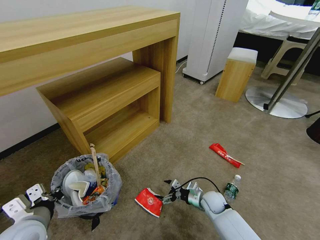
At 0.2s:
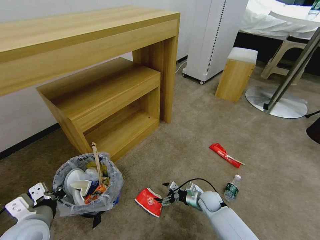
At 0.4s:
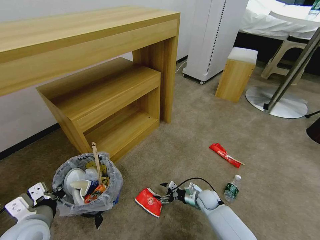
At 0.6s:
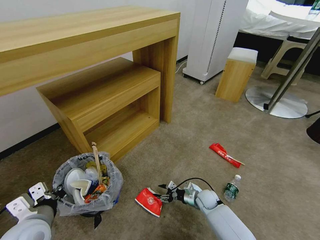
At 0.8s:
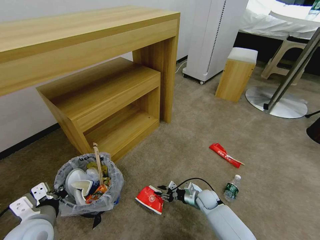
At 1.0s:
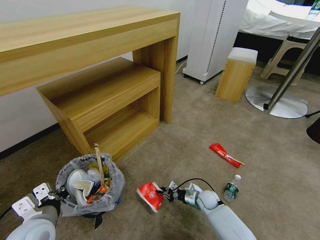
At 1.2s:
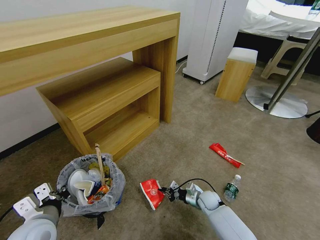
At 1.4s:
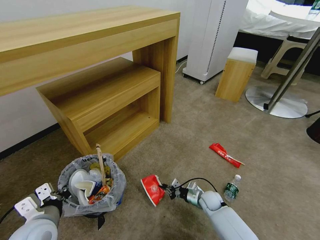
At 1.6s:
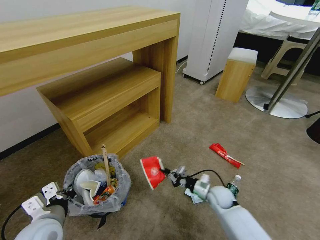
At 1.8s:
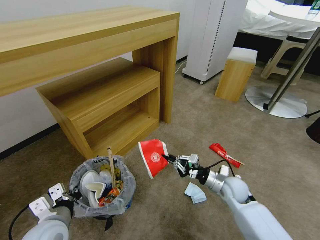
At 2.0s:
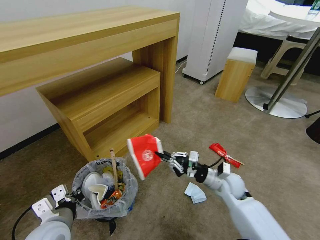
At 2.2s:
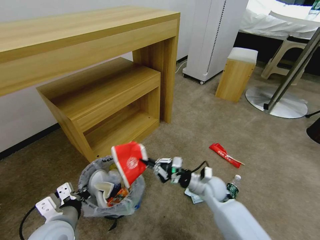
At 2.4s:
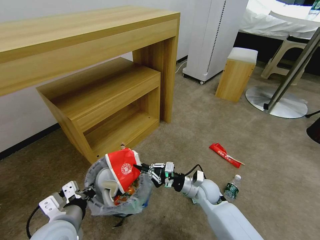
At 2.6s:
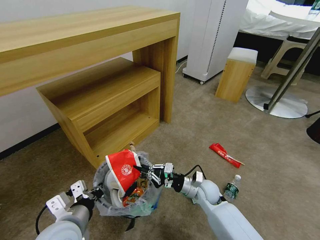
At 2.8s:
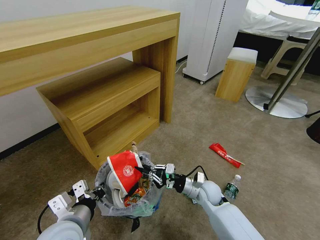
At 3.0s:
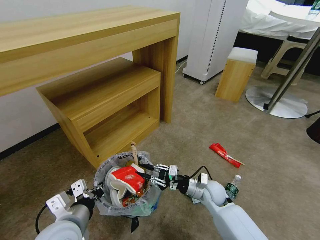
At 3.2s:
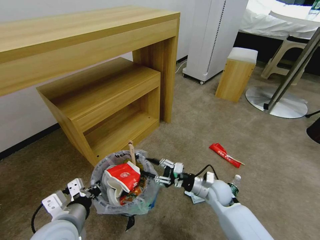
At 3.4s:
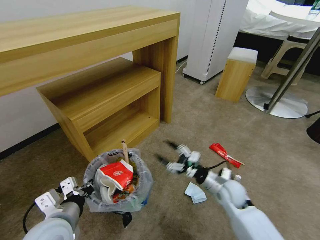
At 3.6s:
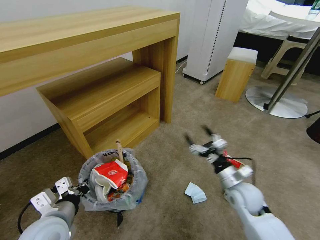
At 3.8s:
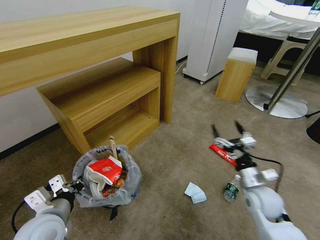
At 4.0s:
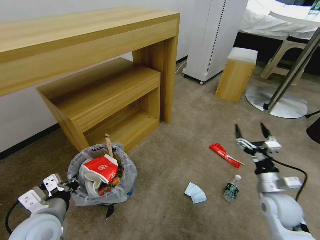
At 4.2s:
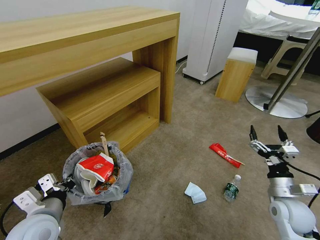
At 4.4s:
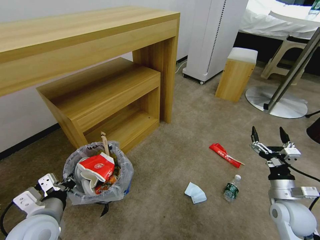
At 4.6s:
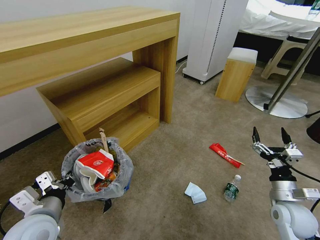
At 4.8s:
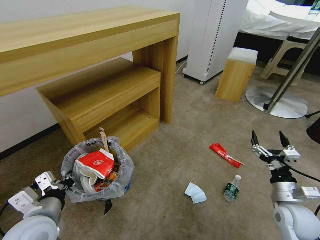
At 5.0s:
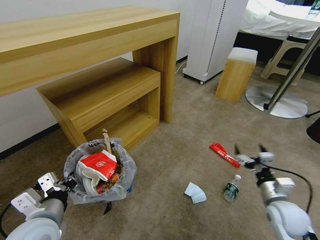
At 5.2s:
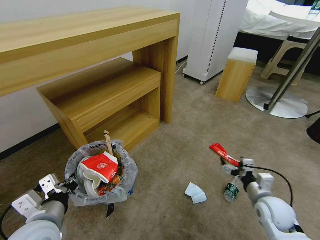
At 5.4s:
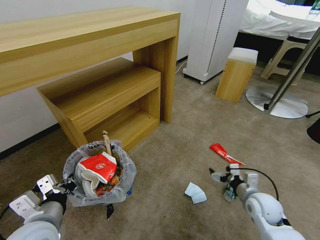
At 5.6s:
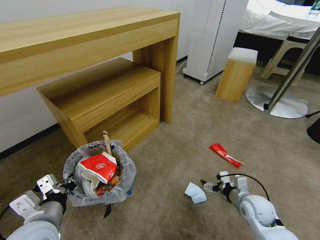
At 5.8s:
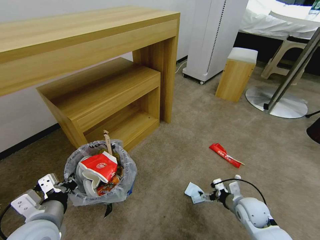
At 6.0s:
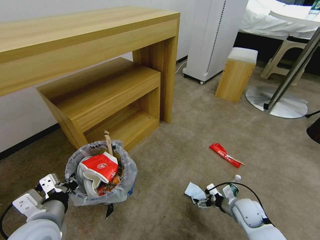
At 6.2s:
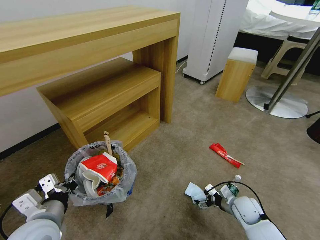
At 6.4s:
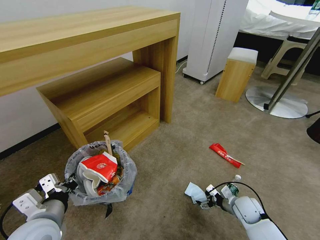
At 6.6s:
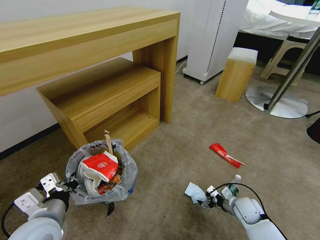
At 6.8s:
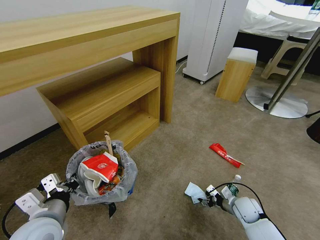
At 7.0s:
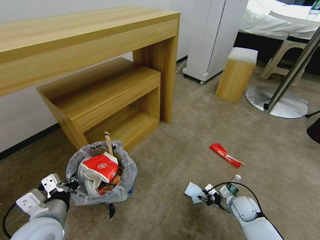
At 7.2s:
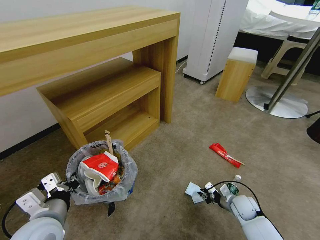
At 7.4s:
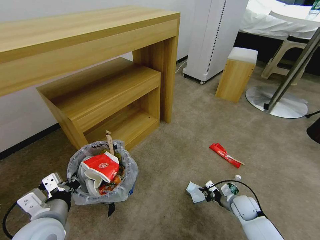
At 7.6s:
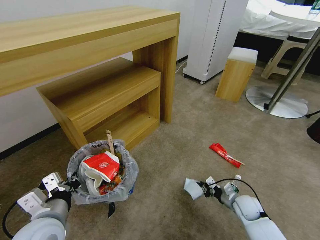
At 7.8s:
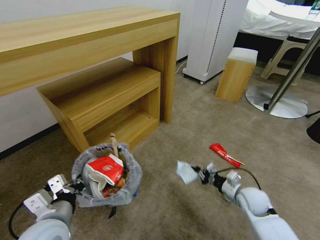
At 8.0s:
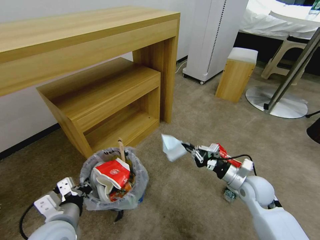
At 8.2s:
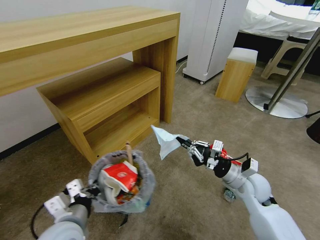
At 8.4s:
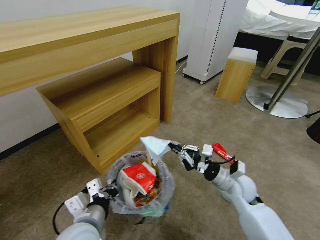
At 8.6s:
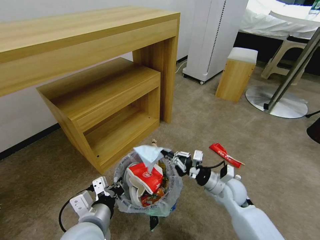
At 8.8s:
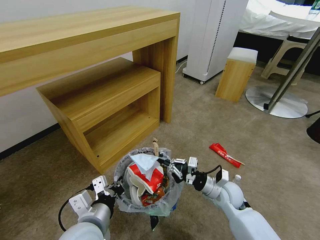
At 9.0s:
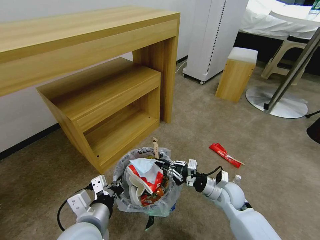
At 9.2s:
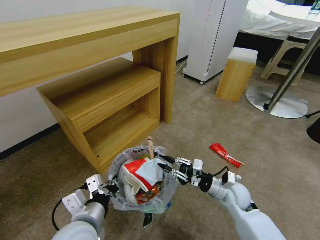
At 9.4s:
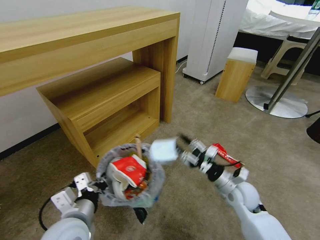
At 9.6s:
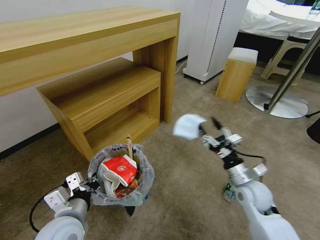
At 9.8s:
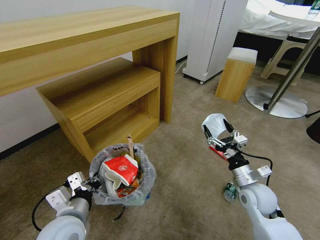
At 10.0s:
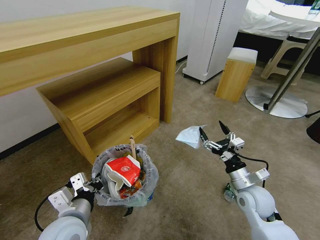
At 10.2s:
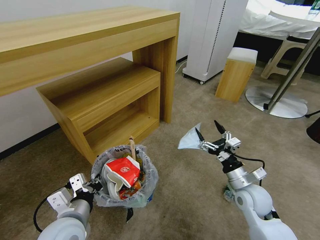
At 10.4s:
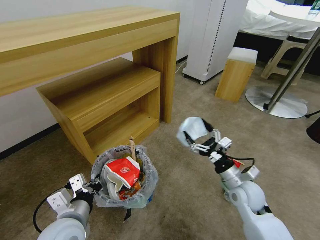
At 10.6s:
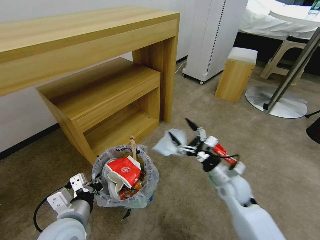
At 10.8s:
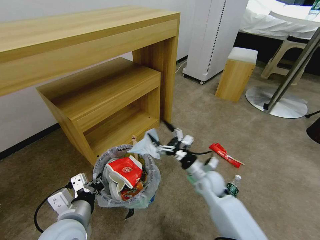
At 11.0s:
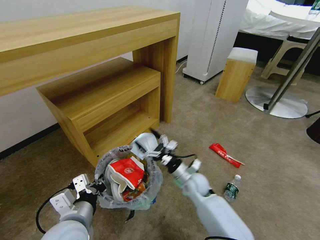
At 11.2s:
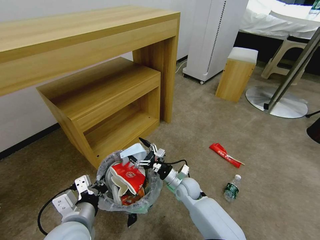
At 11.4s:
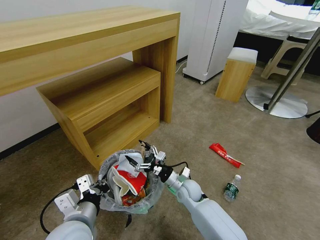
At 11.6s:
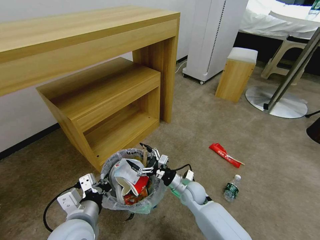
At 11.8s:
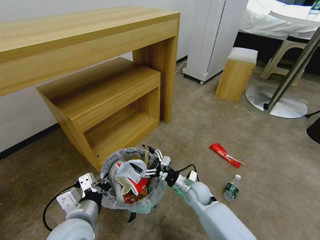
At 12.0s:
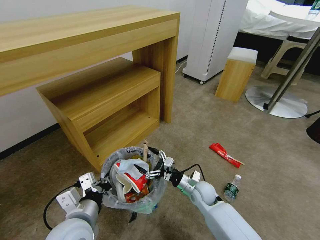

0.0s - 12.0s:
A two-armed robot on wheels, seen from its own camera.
Task of the whole recording: Pick up the trash bin and place the garbage on the floor into it.
0.0s - 1.6s: The right gripper closes its fingers.
1.6s - 3.0s: The right gripper shifts about 10 cm upward. Meanwhile the left gripper heads to the right, covering approximately 5 cm.
3.0s - 4.4s: The left gripper is displaced to the left by approximately 5 cm. Meanwhile the right gripper goes roughly 25 cm to the right, backward and upward, and opens.
4.4s - 6.0s: The right gripper is displaced downward and to the left by approximately 15 cm.
6.0s - 7.6s: The right gripper moves approximately 5 cm, and closes.
7.6s - 9.0s: The right gripper goes roughly 15 cm to the left and upward. Meanwhile the left gripper is displaced to the right by approximately 10 cm.
9.0s - 10.4s: The right gripper is displaced upward by approximately 5 cm, and opens its fingers. Meanwhile the left gripper shifts by about 5 cm.
10.4s - 12.0s: The right gripper goes about 15 cm downward and to the left.

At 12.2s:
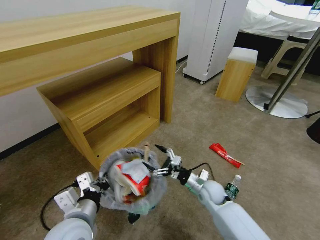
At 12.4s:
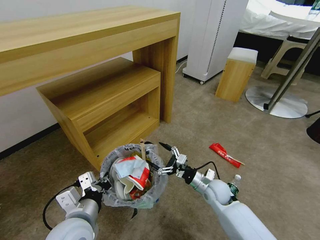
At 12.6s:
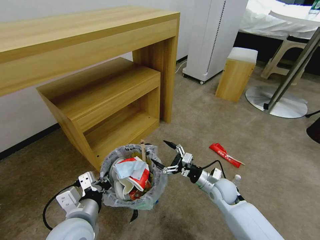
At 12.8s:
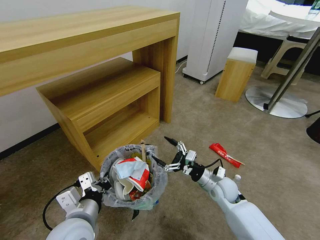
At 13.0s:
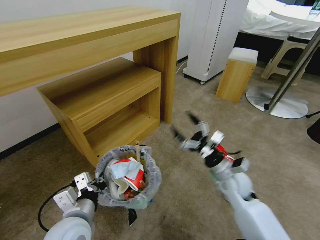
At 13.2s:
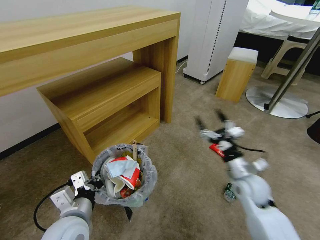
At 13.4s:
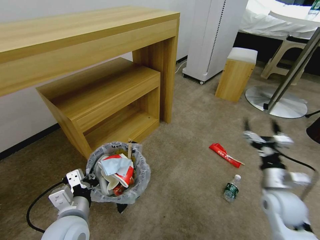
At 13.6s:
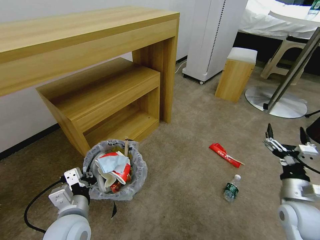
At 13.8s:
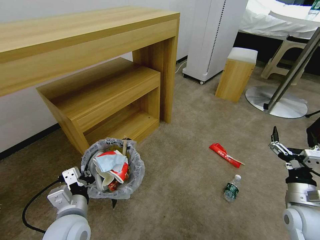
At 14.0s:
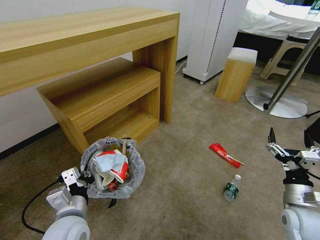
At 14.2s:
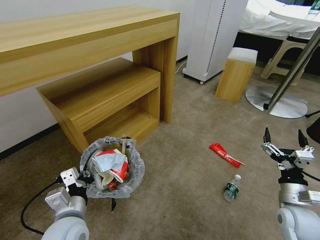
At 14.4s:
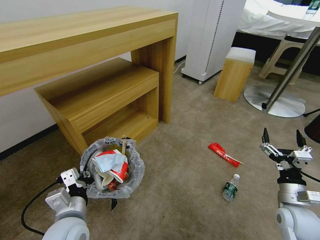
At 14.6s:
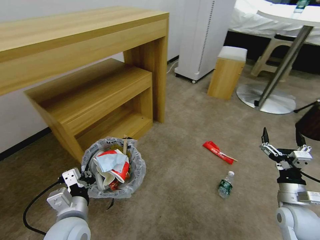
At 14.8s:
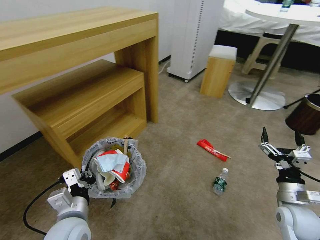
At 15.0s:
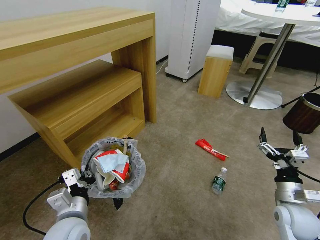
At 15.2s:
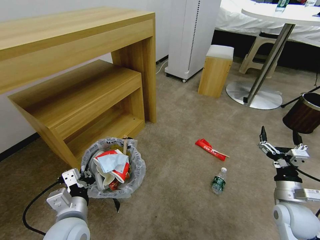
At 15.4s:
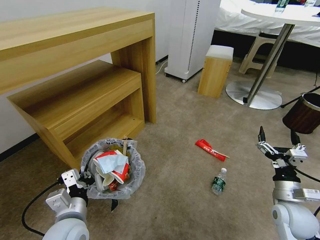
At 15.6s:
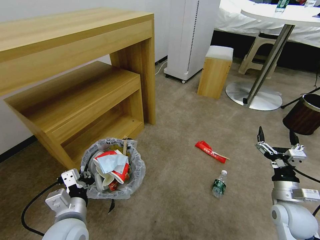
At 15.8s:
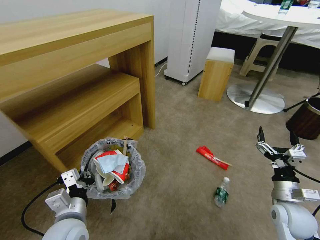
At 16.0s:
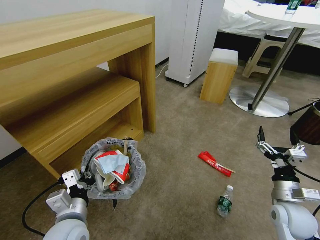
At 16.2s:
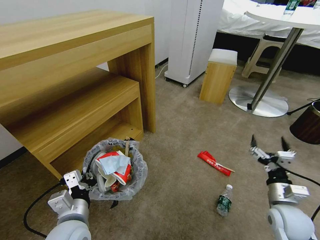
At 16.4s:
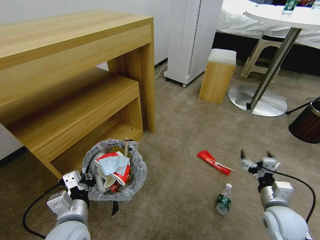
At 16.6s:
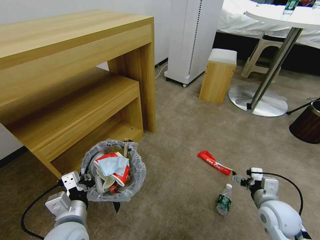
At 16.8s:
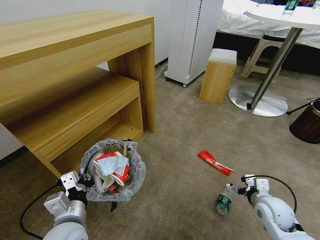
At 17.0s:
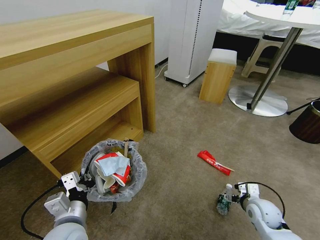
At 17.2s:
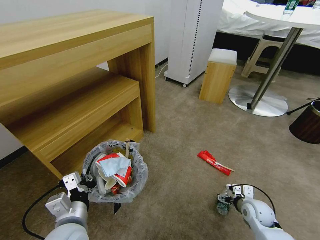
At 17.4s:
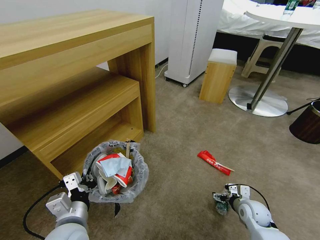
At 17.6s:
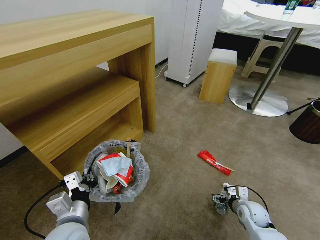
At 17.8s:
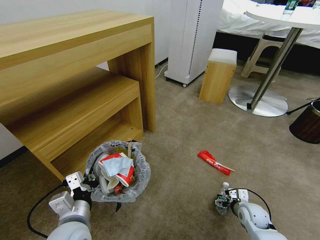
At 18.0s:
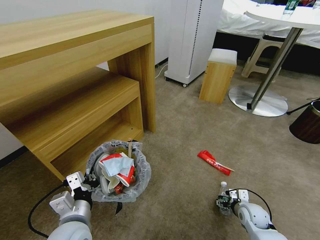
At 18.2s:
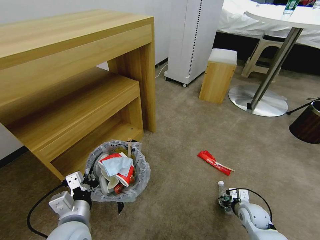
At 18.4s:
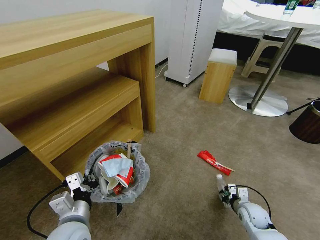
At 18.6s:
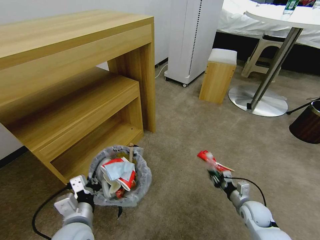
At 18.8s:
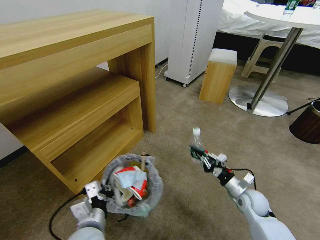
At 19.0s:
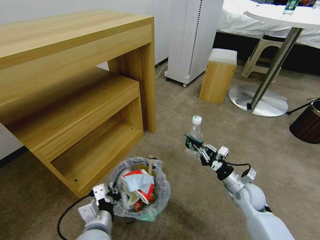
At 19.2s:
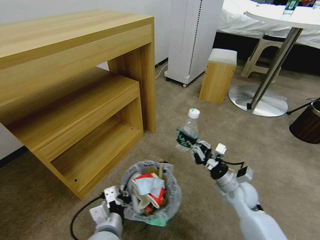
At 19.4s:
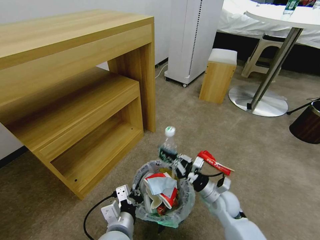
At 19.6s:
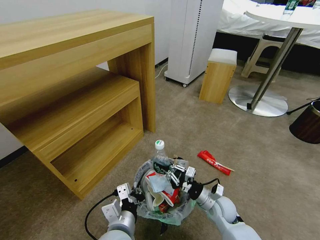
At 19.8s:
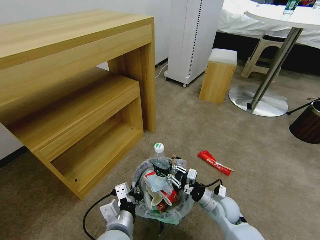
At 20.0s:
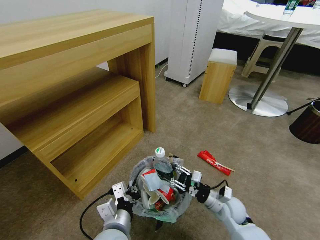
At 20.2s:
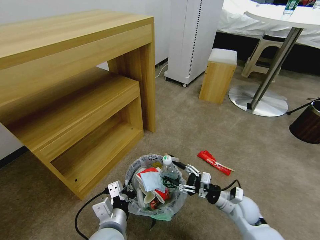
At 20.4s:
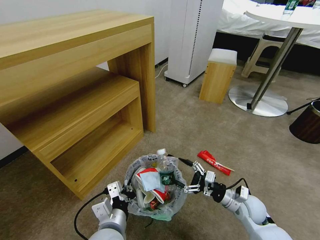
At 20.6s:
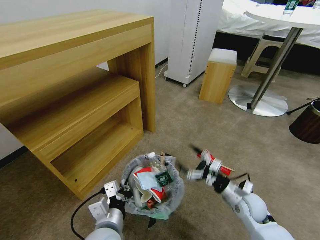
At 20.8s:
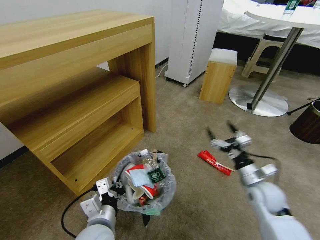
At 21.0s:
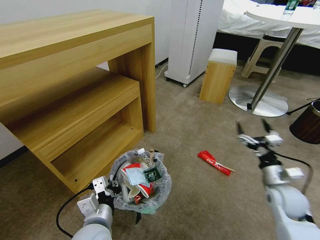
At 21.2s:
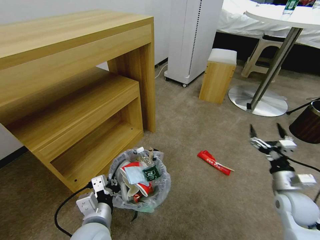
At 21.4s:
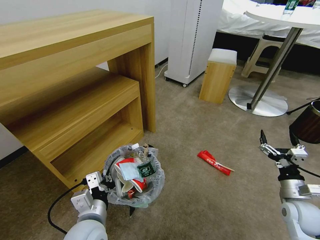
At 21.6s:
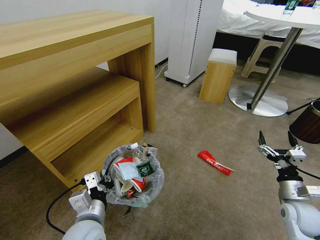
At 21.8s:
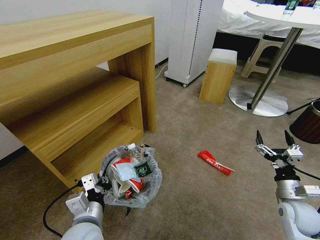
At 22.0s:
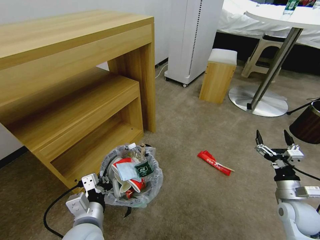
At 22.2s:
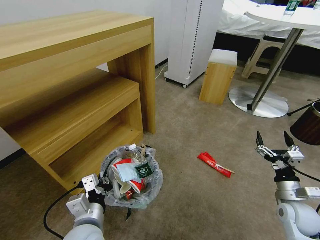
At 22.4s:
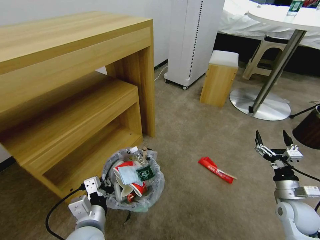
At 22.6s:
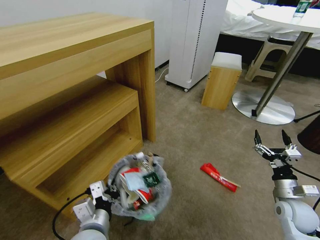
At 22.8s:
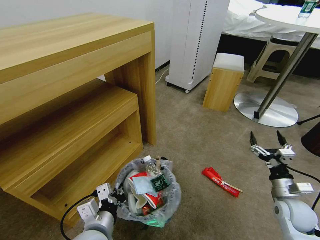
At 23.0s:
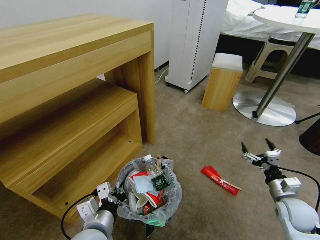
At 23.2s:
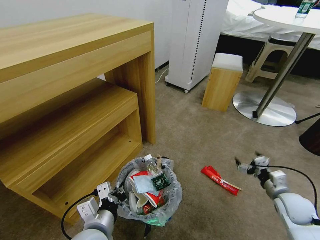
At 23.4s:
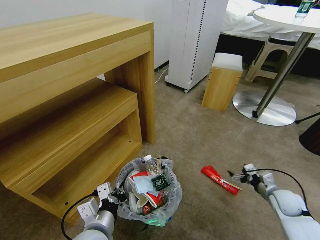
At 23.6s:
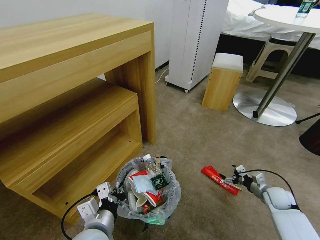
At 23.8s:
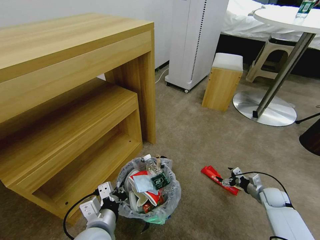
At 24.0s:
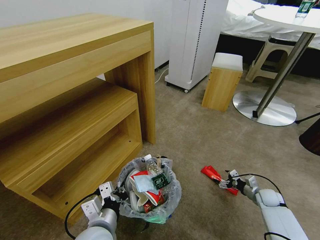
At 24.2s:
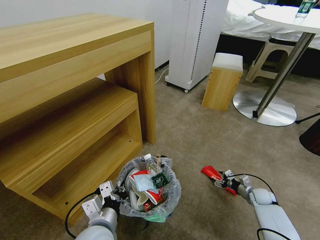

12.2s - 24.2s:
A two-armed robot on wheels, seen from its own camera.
Task of the whole recording: Pick up the trash bin and place the garbage on the floor into it.
12.2s - 13.8s: The right gripper travels to the right, backward and upward by about 25 cm.
16.6s - 18.2s: The right gripper heads downward, covering approximately 15 cm.
18.2s - 19.8s: The right gripper moves to the left and upward, approximately 15 cm, and closes its fingers; the left gripper travels to the right by some 10 cm.
19.8s - 21.2s: The left gripper moves to the left, about 5 cm, while the right gripper is displaced to the right and upward by roughly 20 cm, and opens.
22.6s - 24.2s: The right gripper travels downward and forward by about 20 cm.
